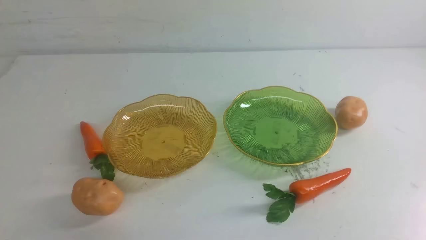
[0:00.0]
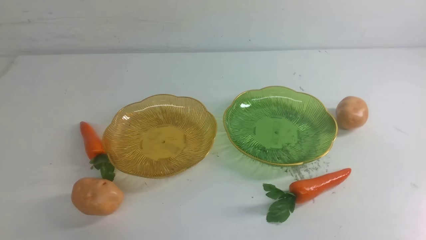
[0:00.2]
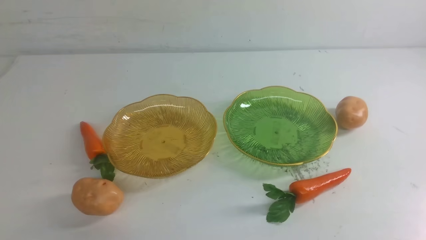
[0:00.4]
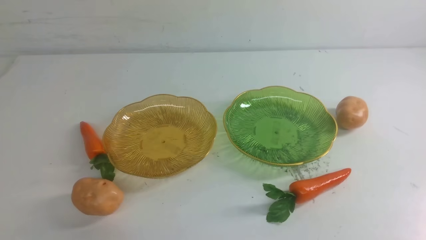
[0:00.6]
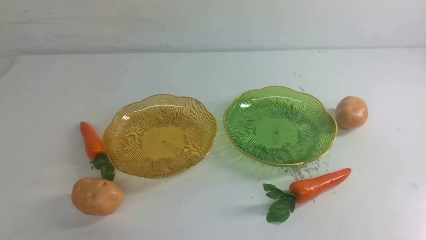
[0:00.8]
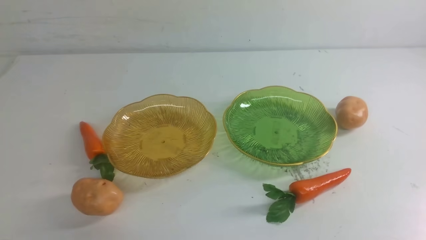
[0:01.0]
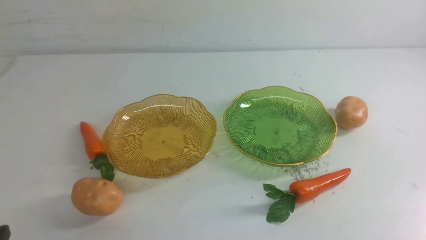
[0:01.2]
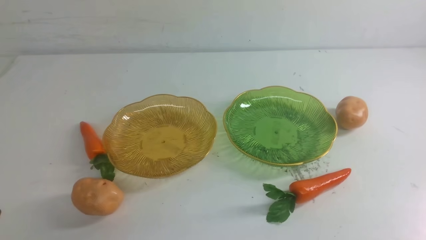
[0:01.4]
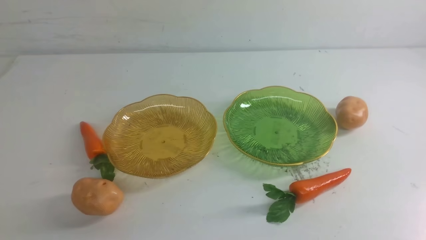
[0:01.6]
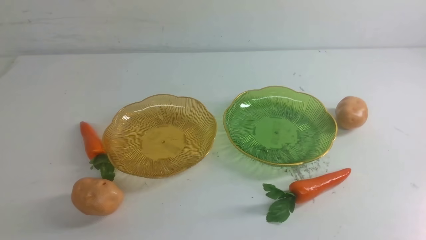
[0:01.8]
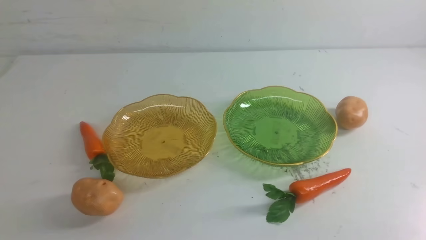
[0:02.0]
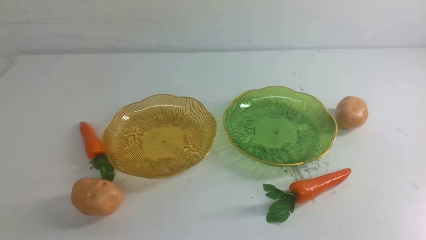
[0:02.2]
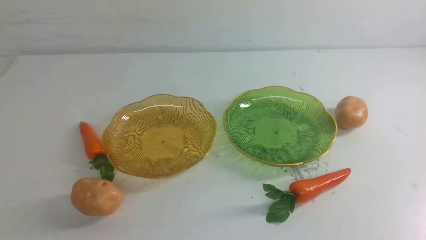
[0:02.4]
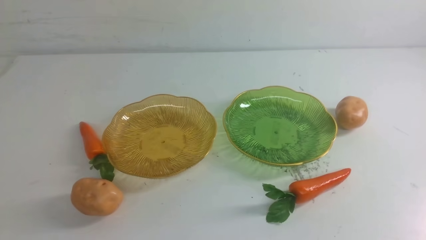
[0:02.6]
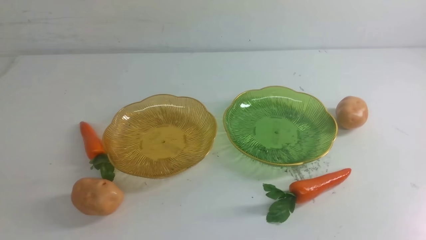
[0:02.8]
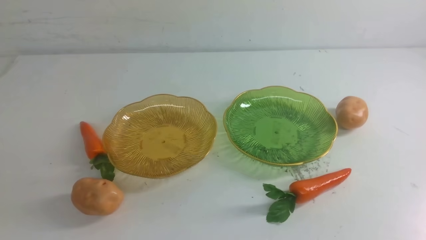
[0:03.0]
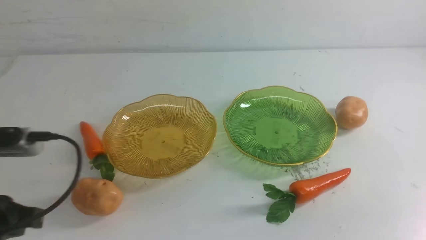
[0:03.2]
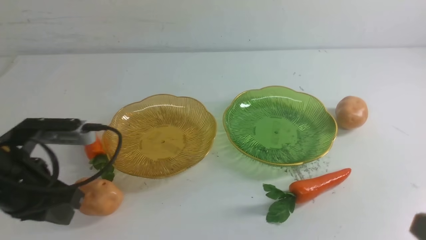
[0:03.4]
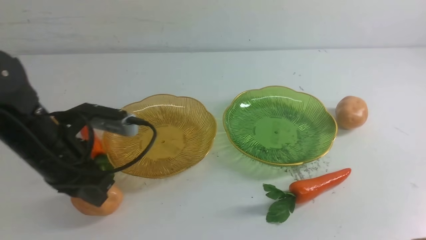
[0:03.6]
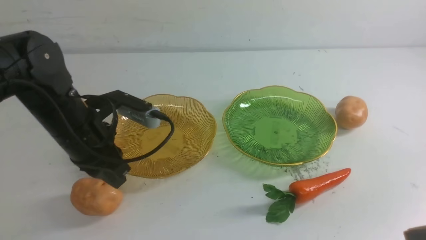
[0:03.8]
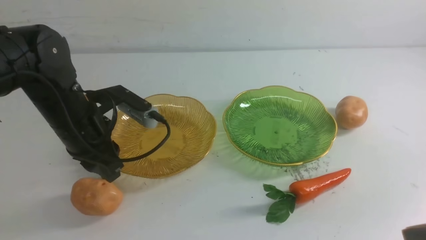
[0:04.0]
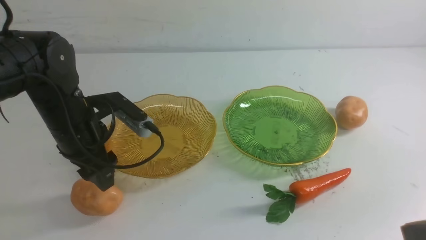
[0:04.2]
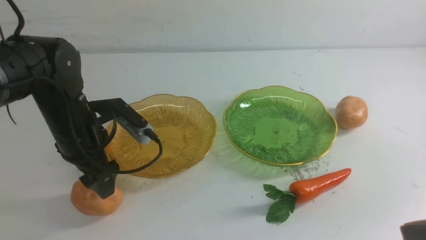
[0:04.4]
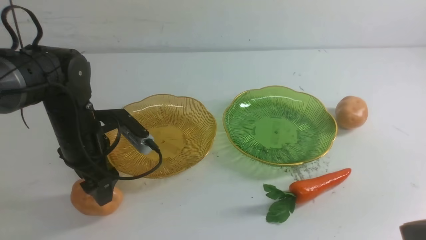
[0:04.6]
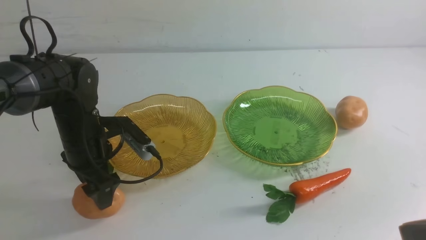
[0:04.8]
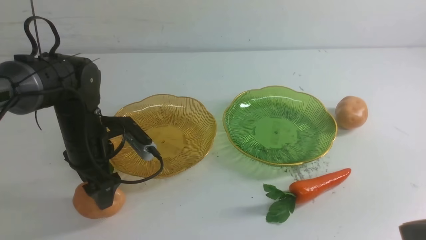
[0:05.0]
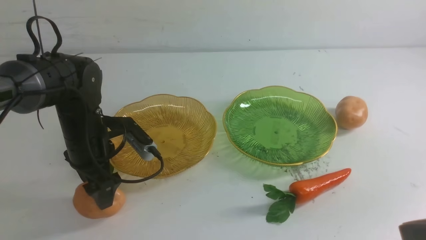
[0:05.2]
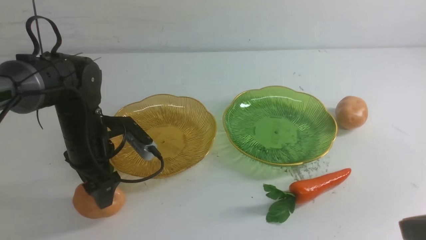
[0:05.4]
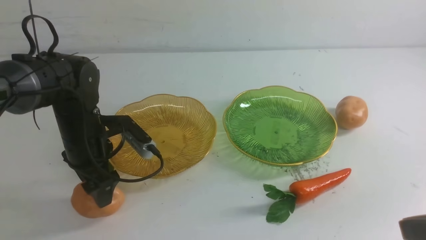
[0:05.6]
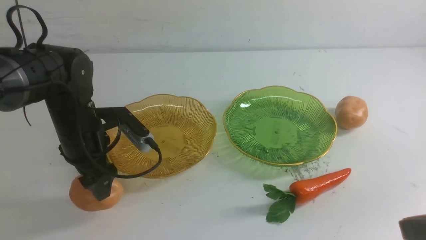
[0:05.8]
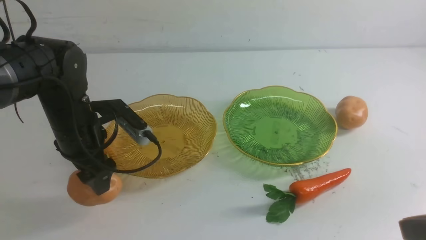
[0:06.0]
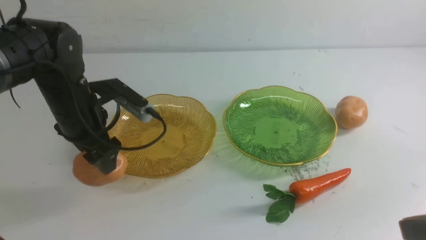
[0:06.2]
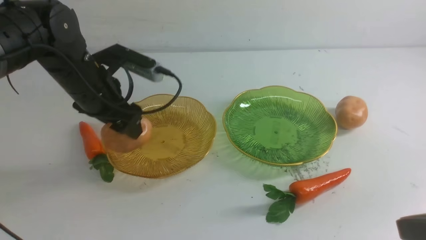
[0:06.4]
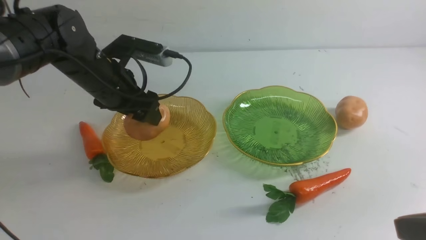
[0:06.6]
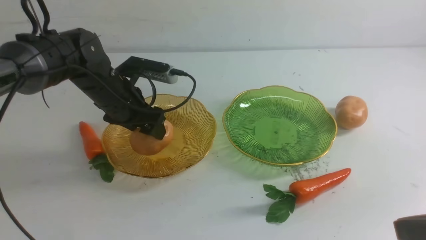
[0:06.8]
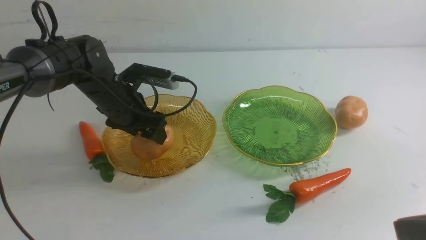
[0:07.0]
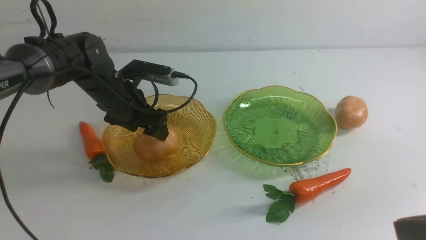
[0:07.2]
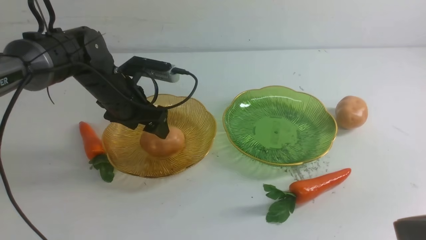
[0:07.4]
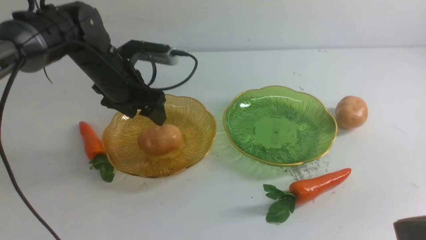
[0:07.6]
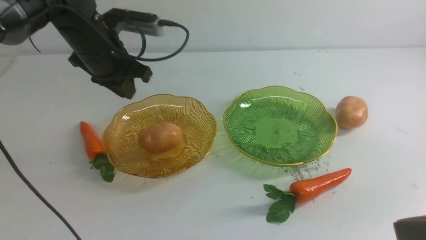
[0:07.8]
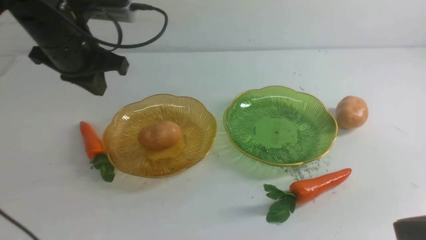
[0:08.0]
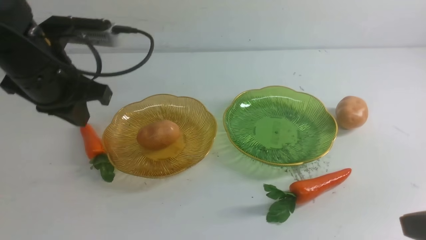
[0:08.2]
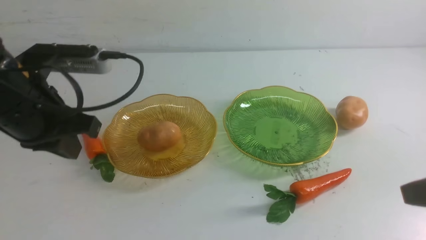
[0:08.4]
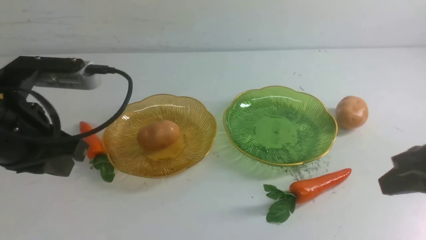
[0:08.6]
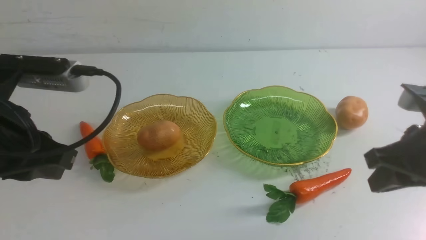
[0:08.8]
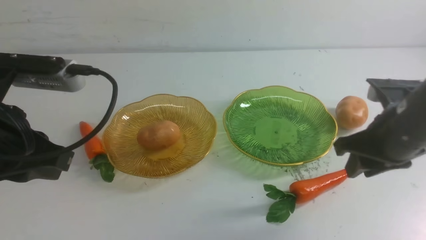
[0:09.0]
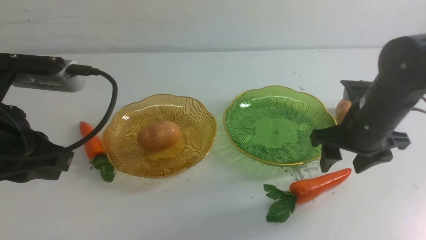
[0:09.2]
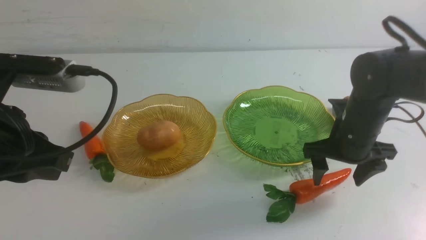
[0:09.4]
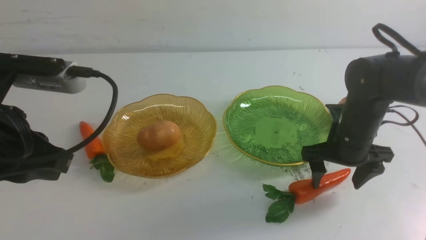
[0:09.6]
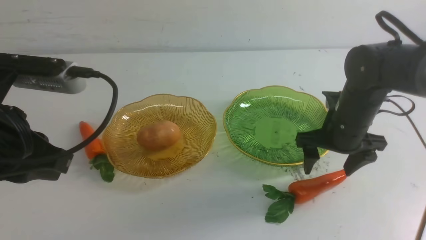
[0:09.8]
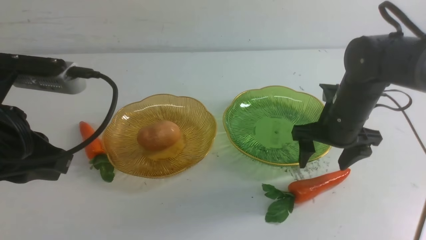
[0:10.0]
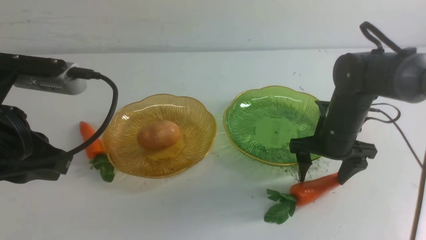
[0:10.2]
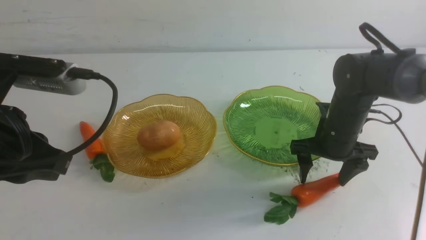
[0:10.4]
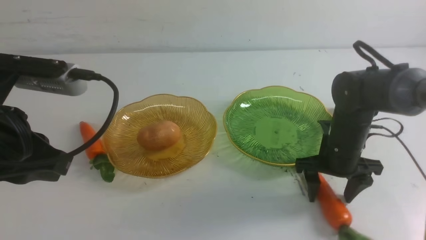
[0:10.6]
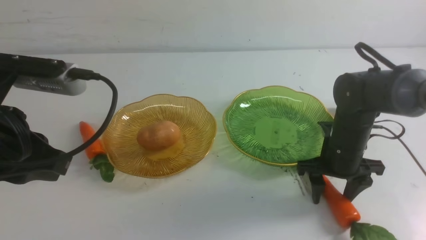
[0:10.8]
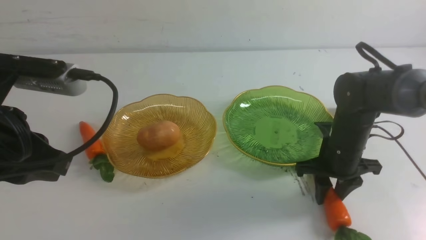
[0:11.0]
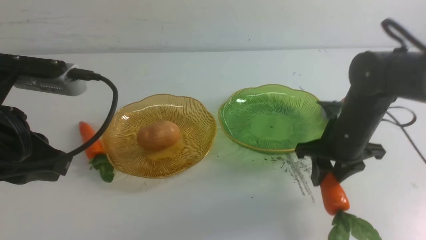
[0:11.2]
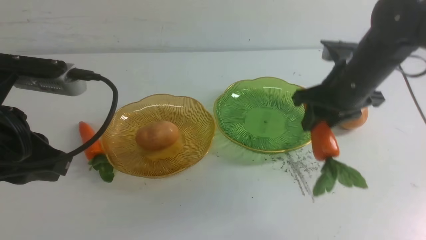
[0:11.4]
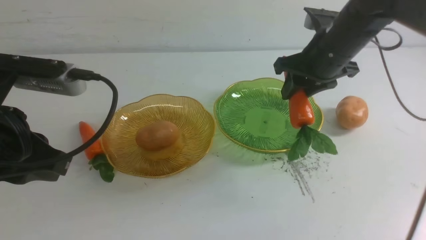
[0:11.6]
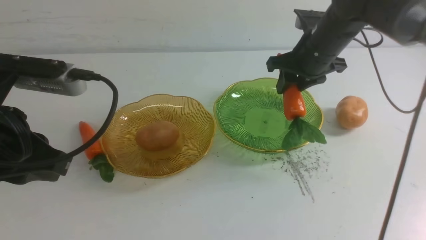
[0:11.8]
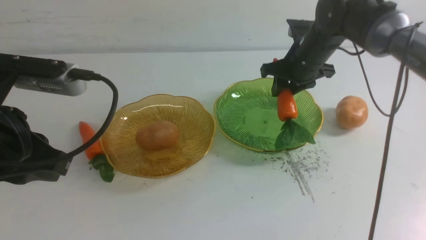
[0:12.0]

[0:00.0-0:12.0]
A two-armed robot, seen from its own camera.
Step, 0.0 to 7.2 s: Grab a potato with your left arm and put it on the left plate.
3.0 to 4.4 s: The left gripper heads forward, covering approximately 20 cm, and opens up; the right gripper moves upward, some 10 cm.
4.4 to 6.0 s: The grippers make only small movements.
6.0 to 7.6 s: The left gripper shifts some 5 cm forward.
7.6 to 9.0 s: The left gripper shifts roughly 20 cm backward, and closes up; the right gripper shifts about 20 cm forward, and opens.
9.0 to 10.4 s: The right gripper shifts roughly 10 cm downward and forward, and opens up.
10.4 to 12.0 s: The right gripper is displaced forward and upward by some 15 cm, and closes up.

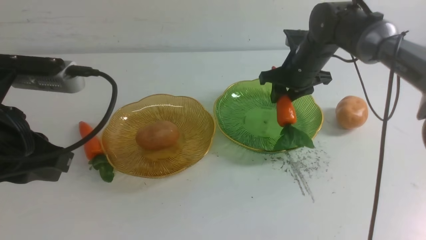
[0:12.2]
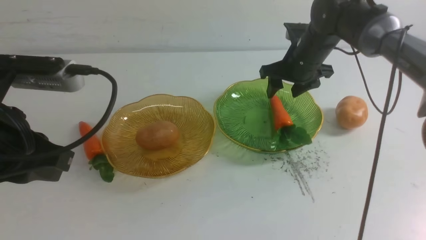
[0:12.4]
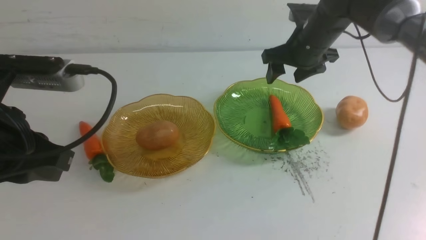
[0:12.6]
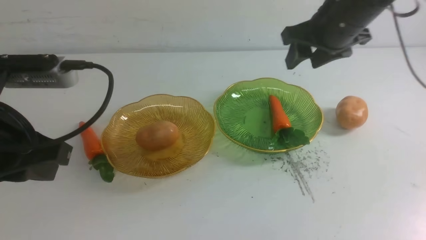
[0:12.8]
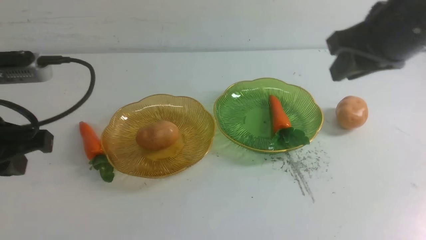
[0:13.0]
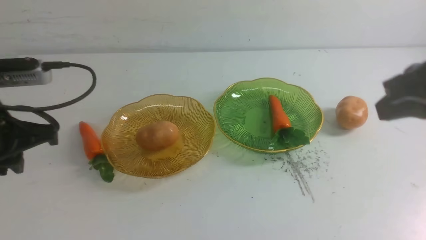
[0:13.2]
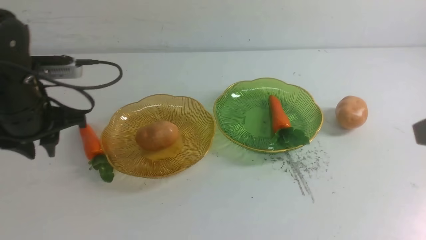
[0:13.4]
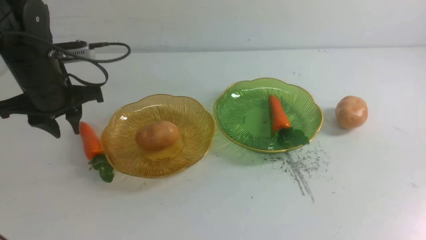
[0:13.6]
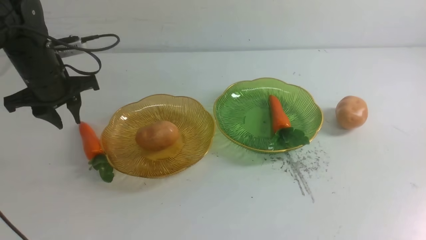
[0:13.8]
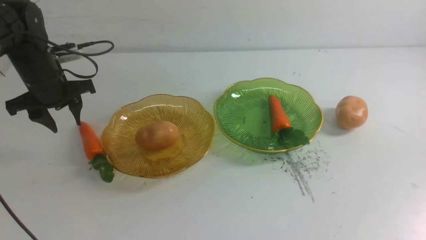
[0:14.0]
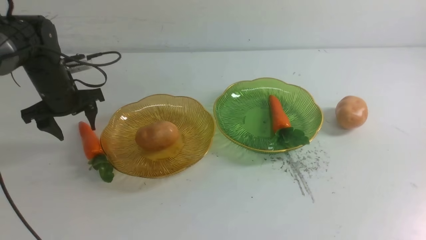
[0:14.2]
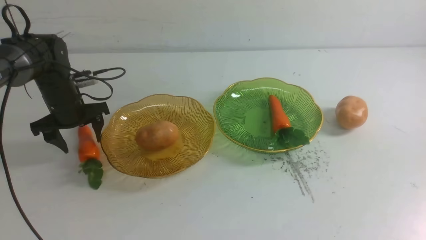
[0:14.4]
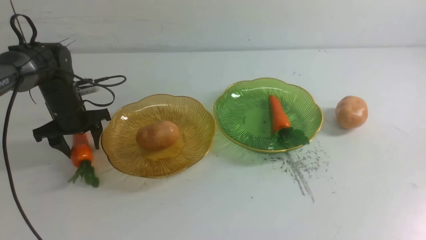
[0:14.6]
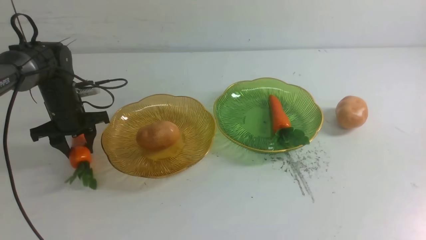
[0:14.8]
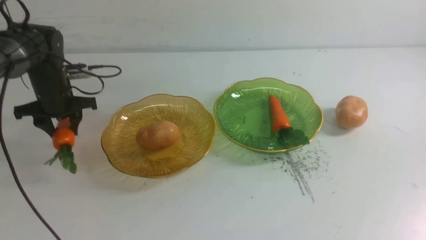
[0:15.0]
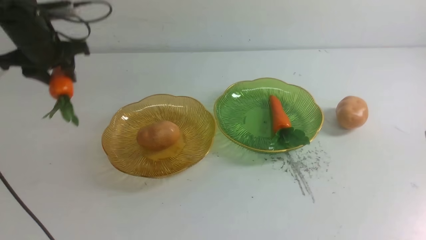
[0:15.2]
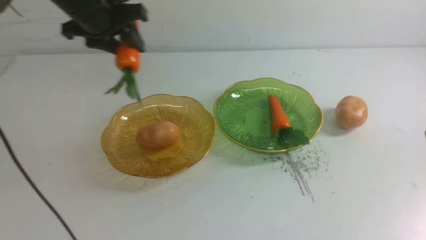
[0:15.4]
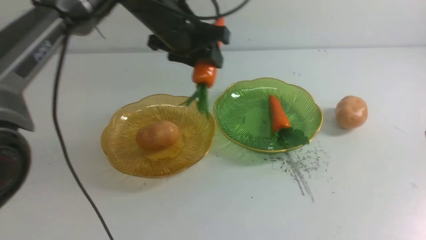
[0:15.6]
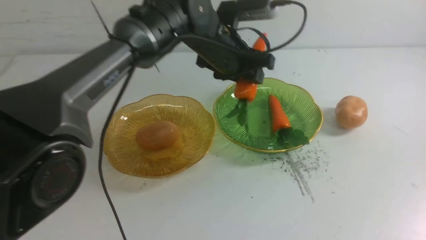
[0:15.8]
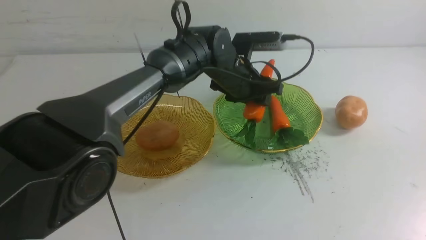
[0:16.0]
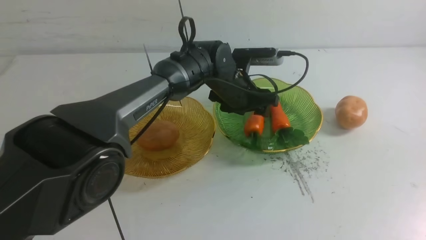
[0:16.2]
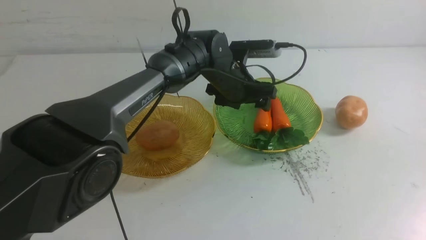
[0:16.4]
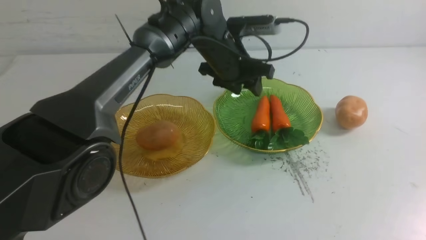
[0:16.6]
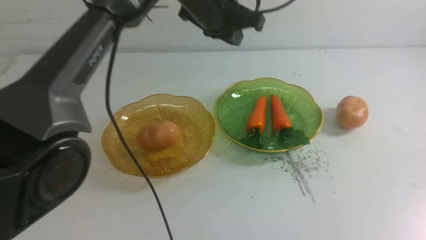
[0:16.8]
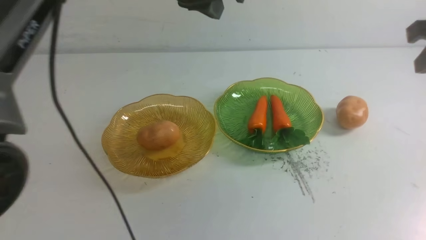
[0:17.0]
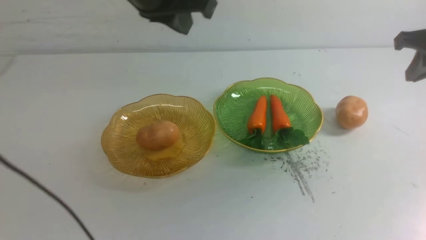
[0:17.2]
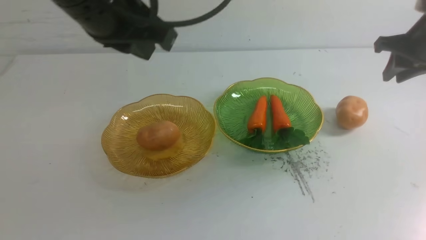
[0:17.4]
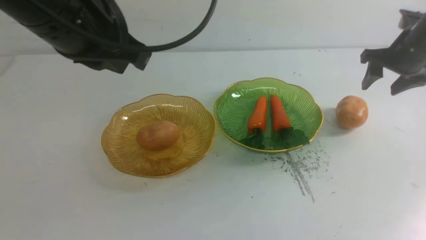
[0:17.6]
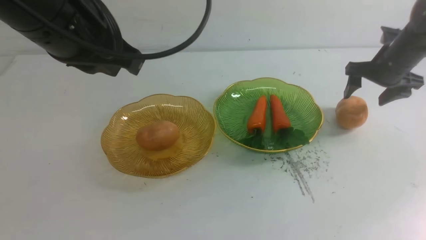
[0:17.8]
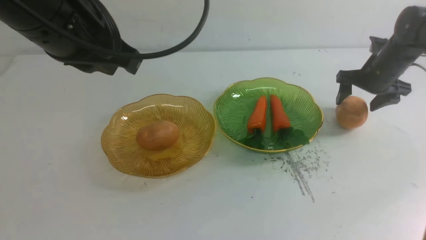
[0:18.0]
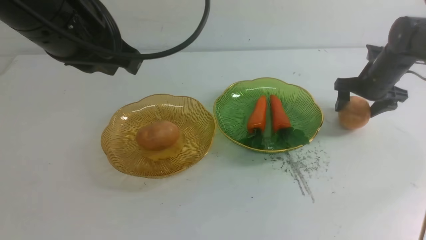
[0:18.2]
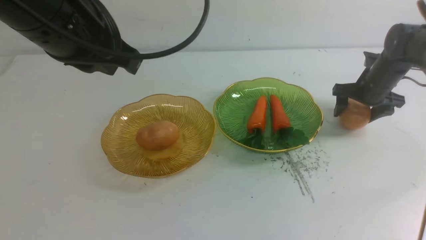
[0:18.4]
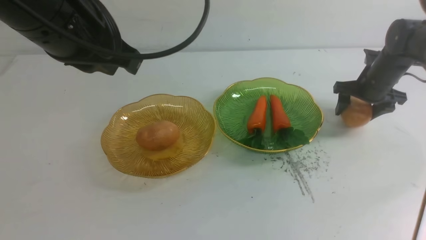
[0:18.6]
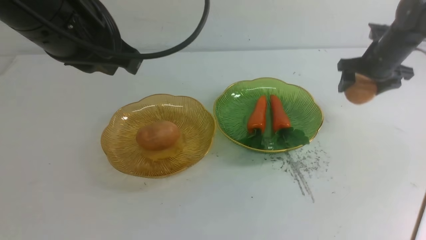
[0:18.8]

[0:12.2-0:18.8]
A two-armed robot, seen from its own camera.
Step, 12.6 to 16.2 s: use the right arm to grab a carrot and put it into the right plate.
12.2 to 13.8 s: The right gripper heads backward and upward, covering roughly 40 cm, and closes; the left gripper is displaced forward and downward by approximately 25 cm, and opens up.
13.8 to 15.4 s: The left gripper travels to the right and upward by approximately 15 cm.
15.4 to 17.2 s: The right gripper shifts approximately 25 cm forward. Meanwhile the left gripper shifts approximately 15 cm backward, upward and to the right, and closes up.
17.2 to 18.8 s: The left gripper goes approximately 10 cm backward and to the left. The right gripper is displaced forward and downward by roughly 15 cm, and opens.
